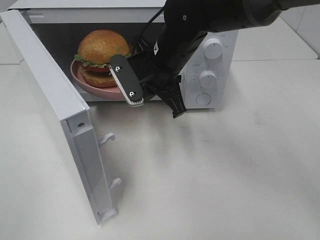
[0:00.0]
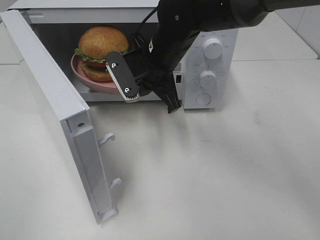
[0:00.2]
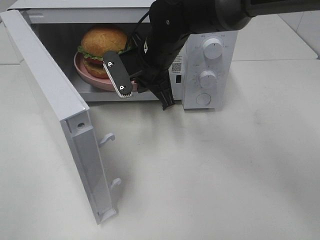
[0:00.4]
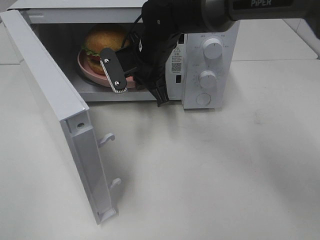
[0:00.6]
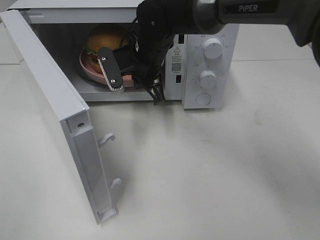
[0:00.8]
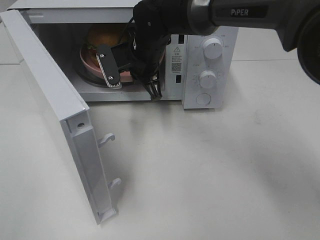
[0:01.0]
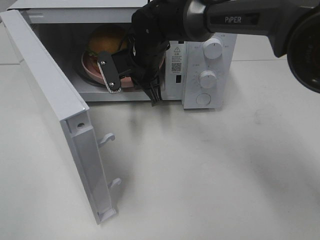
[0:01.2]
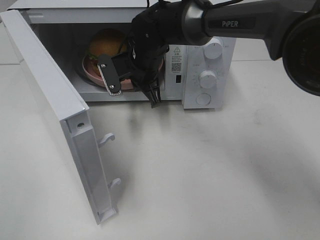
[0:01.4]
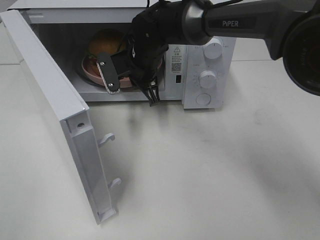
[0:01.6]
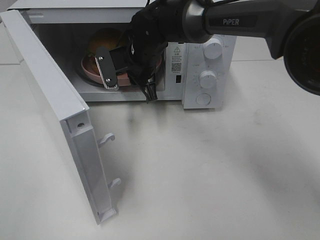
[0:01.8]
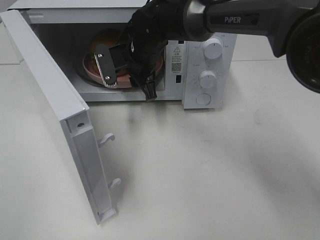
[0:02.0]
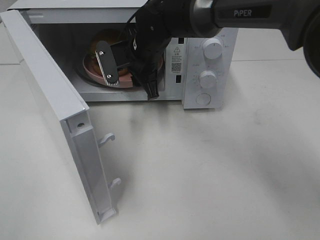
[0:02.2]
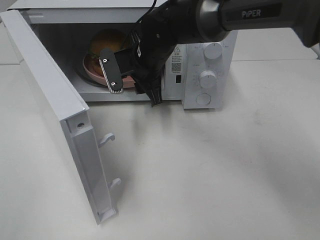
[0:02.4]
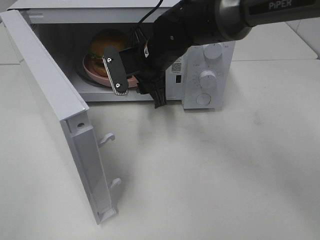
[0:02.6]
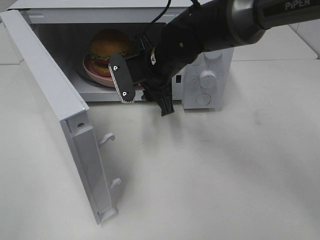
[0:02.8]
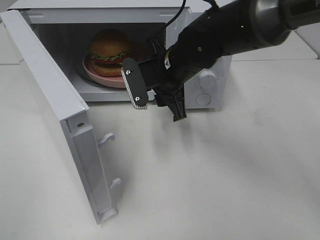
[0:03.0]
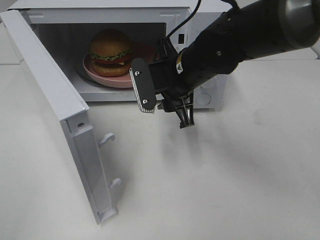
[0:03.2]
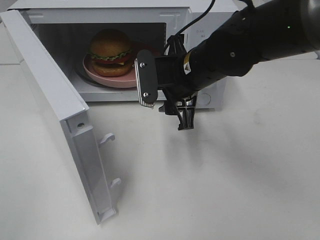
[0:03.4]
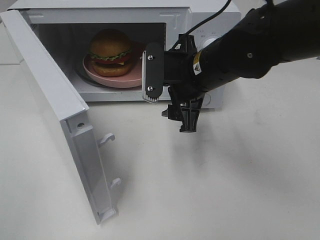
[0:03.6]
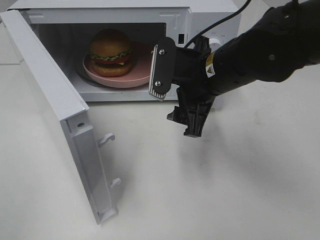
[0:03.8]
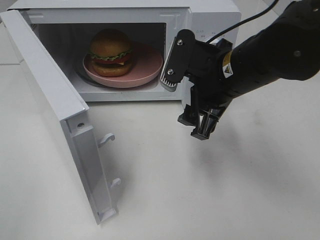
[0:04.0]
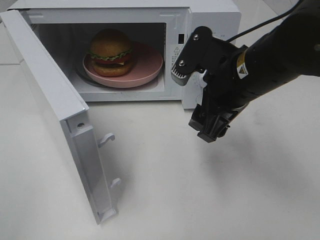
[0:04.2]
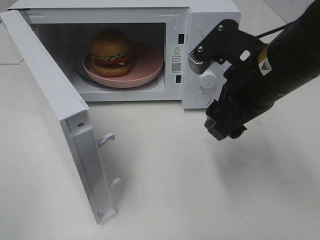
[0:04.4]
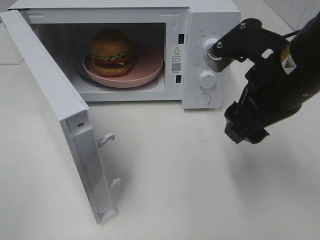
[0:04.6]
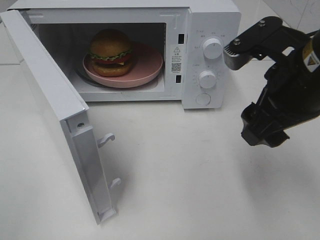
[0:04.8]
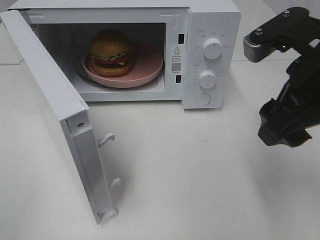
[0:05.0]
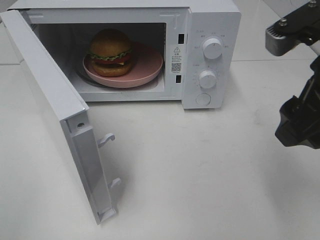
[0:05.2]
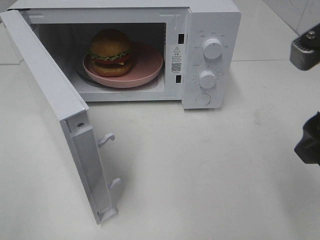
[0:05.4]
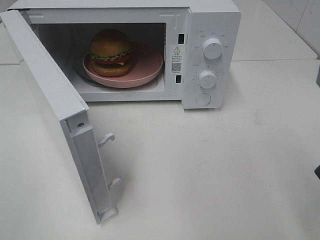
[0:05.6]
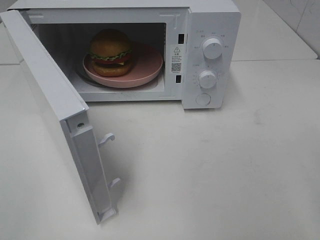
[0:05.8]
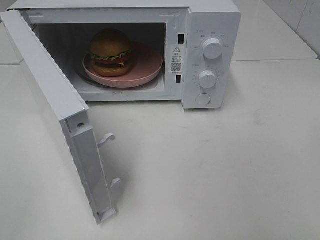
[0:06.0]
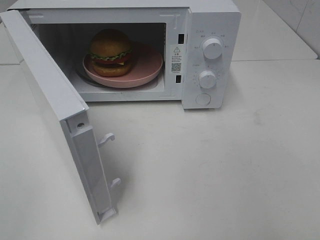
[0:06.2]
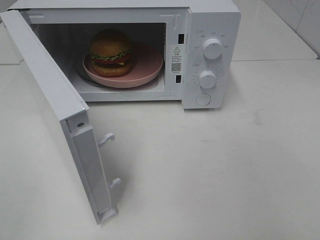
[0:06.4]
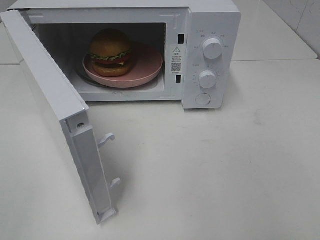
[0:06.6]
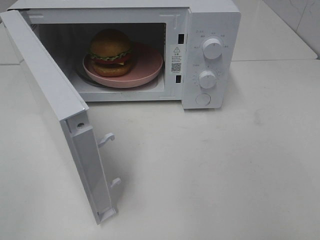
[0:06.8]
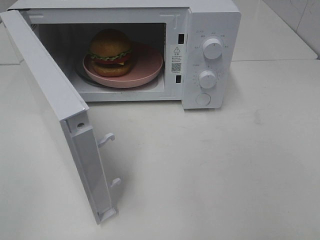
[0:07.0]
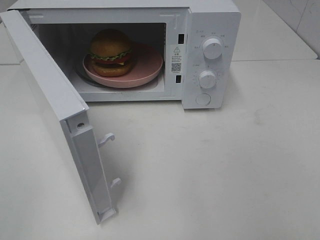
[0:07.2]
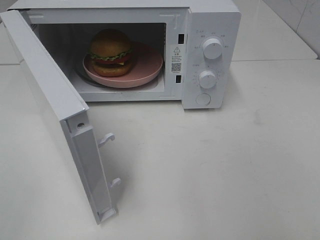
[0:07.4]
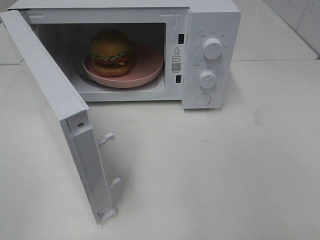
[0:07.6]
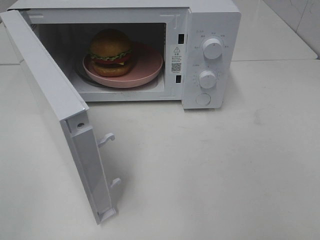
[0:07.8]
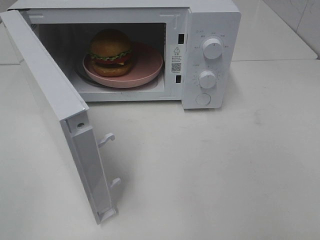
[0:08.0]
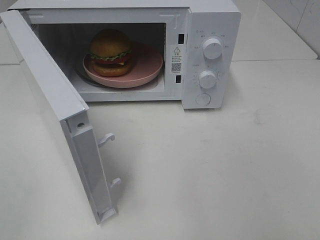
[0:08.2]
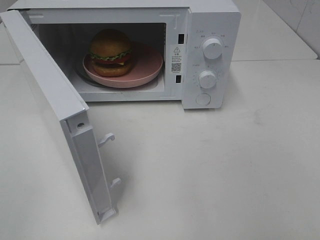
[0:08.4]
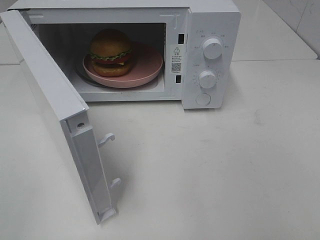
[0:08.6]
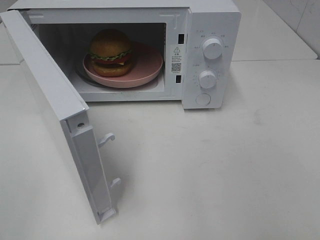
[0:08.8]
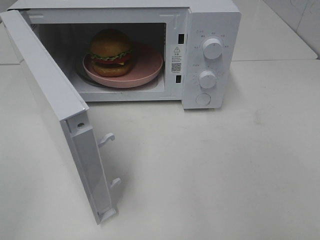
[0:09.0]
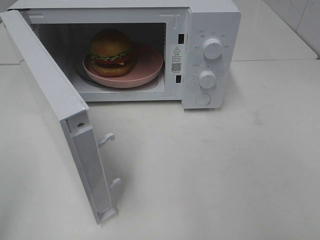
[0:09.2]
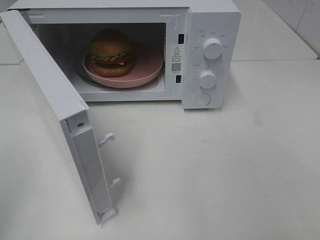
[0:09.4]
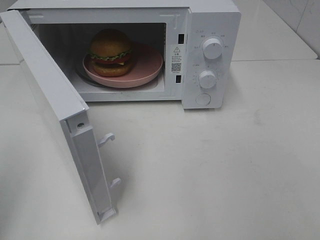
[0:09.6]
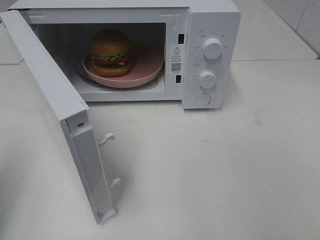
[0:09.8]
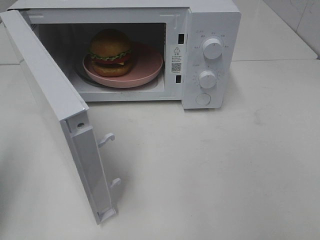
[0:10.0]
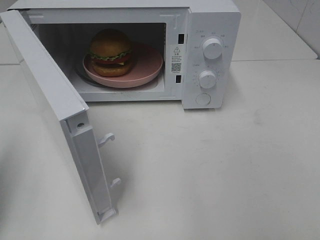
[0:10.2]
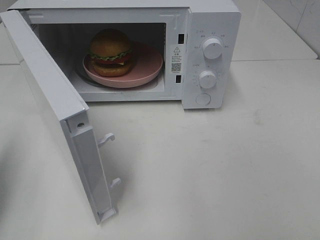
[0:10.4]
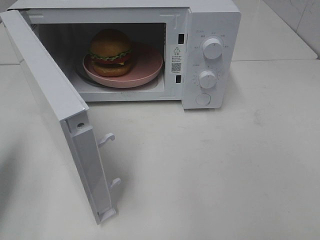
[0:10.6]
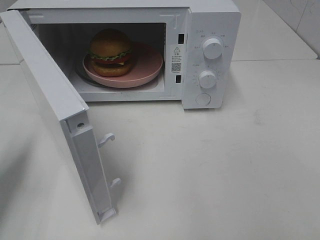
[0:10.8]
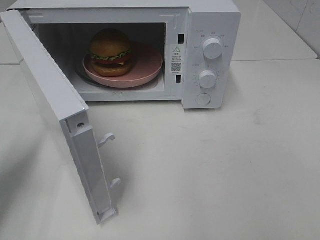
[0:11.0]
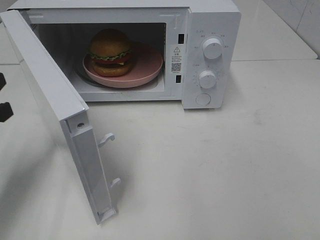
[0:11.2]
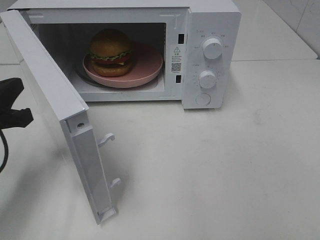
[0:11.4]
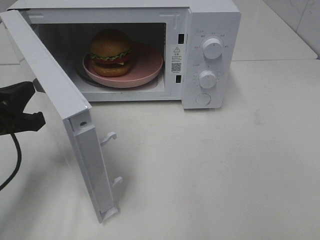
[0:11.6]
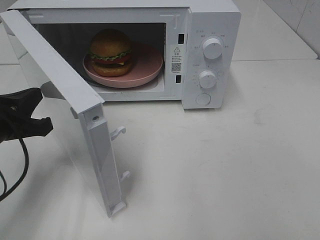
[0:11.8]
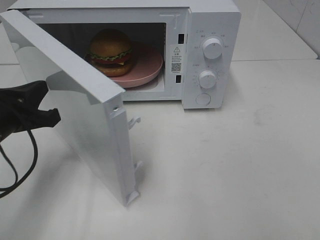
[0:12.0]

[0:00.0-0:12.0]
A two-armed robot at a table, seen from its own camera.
Task of the whole recording: Heat the burger.
Step, 0:00.0 to 0:02.8: Right hand: place the plate in the microwave.
0:00.0 to 0:01.6: The right gripper travels forward by roughly 5 cm.
0:01.6 to 0:03.0: The right gripper moves backward and to the right, roughly 10 cm, and opens.
0:03.0 to 0:04.4: The right gripper goes about 15 cm backward, to the right and upward.
0:04.4 to 0:06.0: The right gripper shifts about 20 cm to the right and backward.
0:09.0 to 0:10.4: The left gripper heads forward, covering approximately 15 cm, and closes.
0:10.4 to 0:12.0: The left gripper goes some 15 cm to the right, downward and forward.

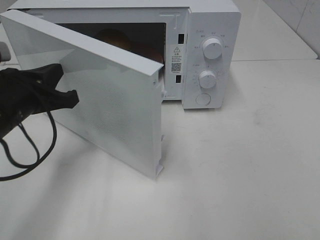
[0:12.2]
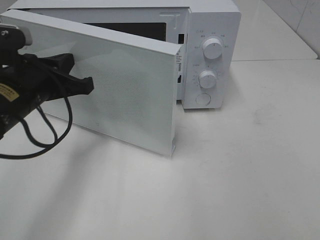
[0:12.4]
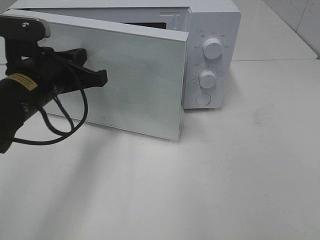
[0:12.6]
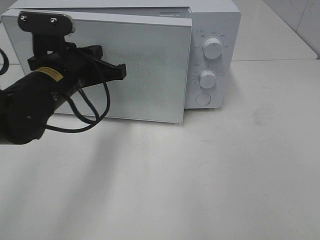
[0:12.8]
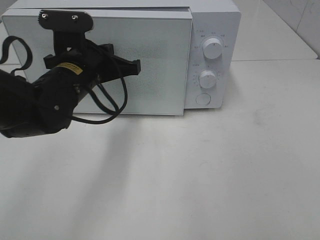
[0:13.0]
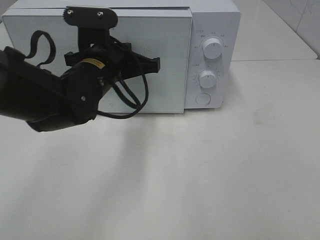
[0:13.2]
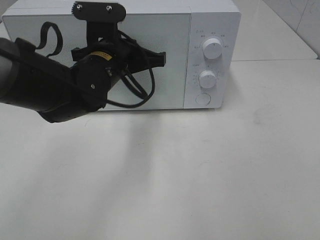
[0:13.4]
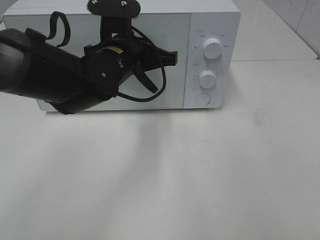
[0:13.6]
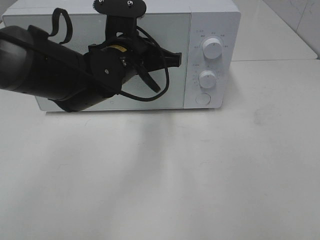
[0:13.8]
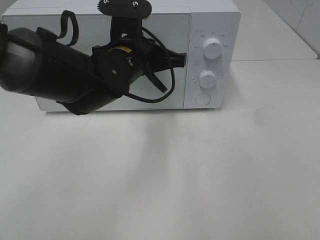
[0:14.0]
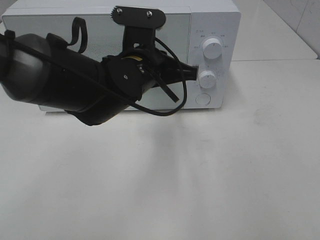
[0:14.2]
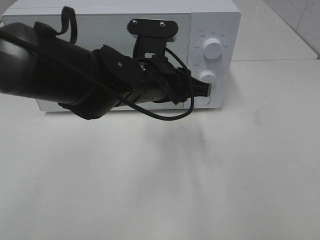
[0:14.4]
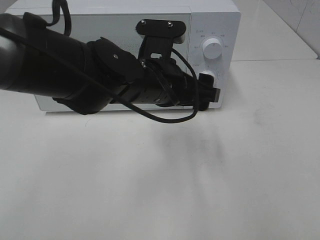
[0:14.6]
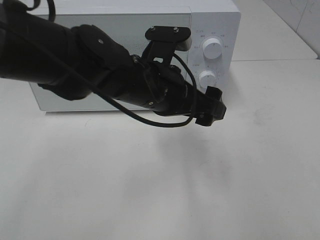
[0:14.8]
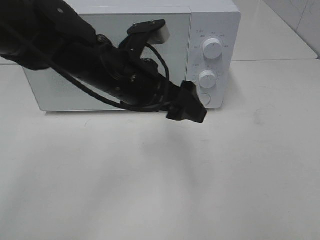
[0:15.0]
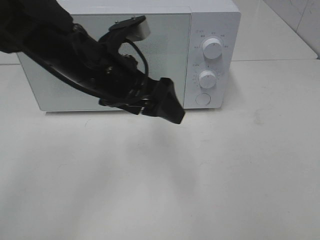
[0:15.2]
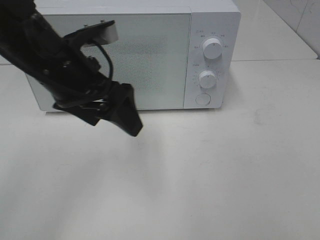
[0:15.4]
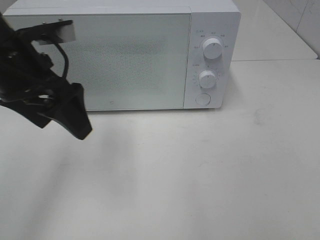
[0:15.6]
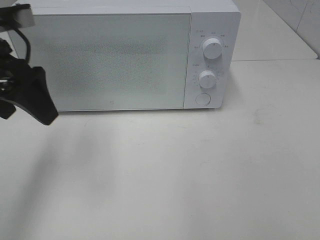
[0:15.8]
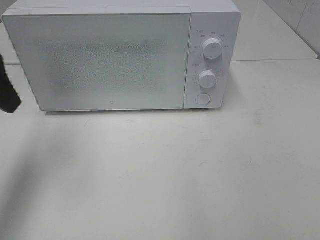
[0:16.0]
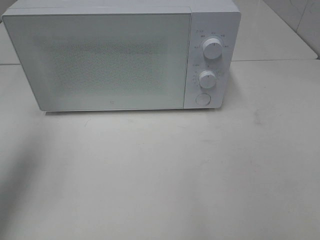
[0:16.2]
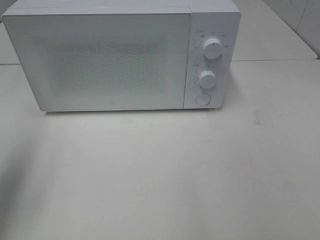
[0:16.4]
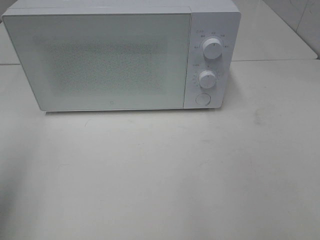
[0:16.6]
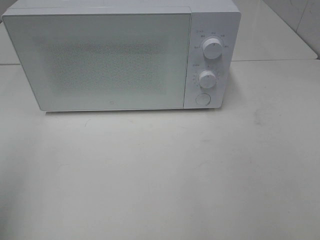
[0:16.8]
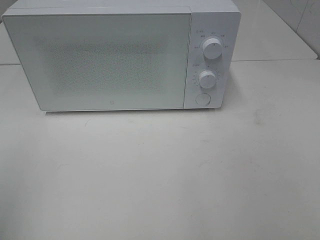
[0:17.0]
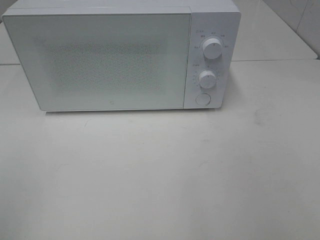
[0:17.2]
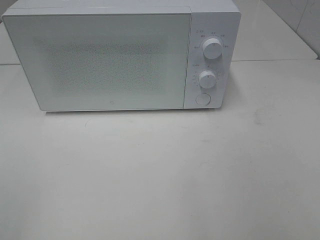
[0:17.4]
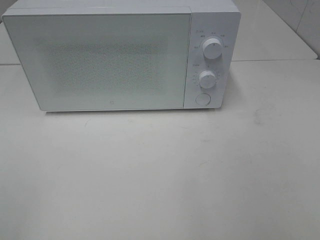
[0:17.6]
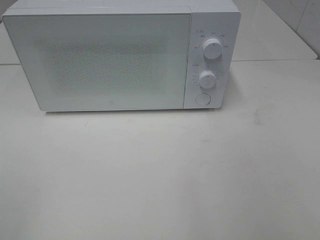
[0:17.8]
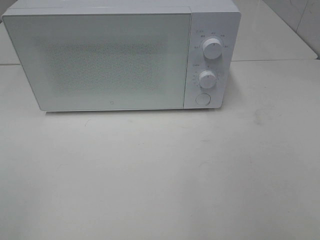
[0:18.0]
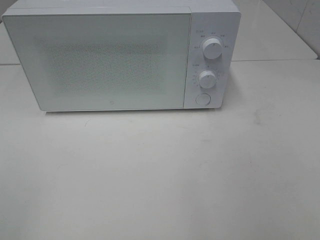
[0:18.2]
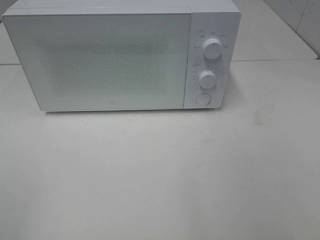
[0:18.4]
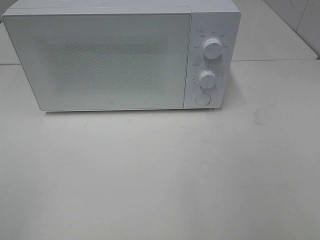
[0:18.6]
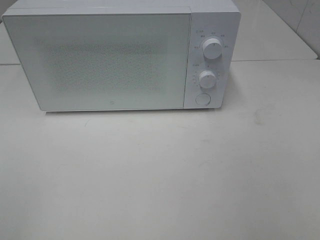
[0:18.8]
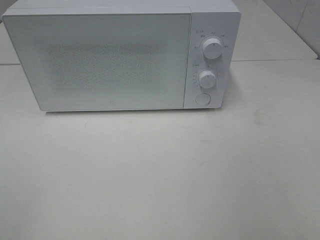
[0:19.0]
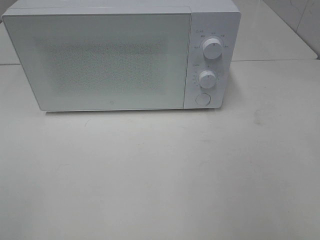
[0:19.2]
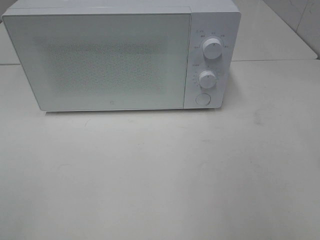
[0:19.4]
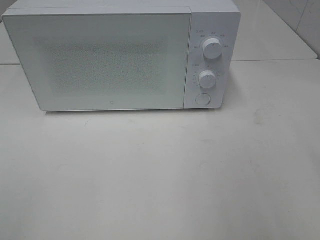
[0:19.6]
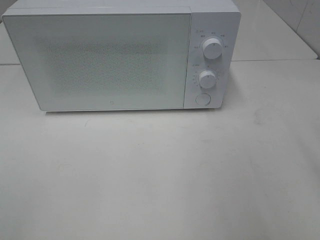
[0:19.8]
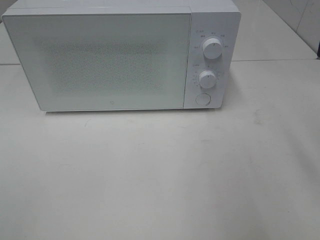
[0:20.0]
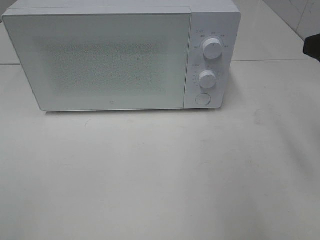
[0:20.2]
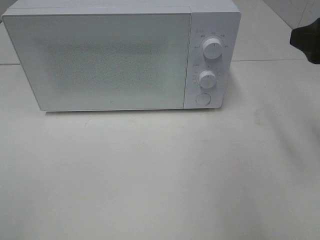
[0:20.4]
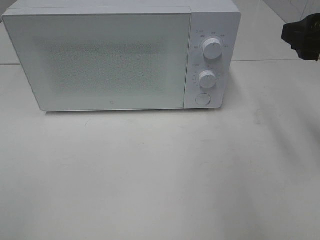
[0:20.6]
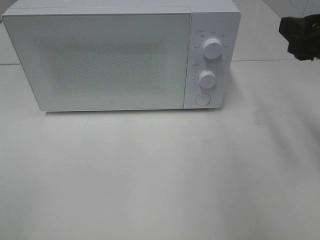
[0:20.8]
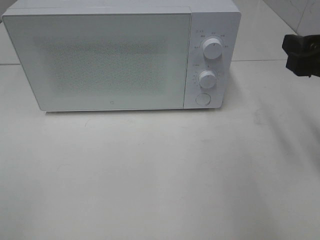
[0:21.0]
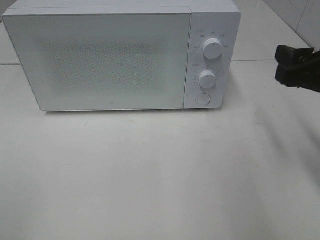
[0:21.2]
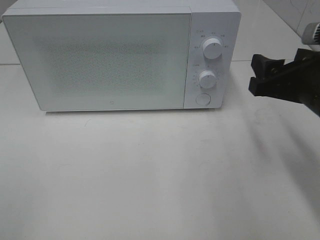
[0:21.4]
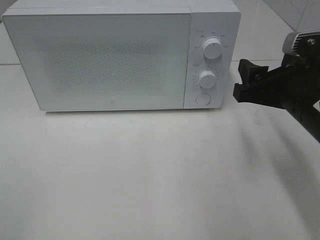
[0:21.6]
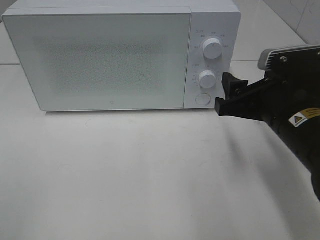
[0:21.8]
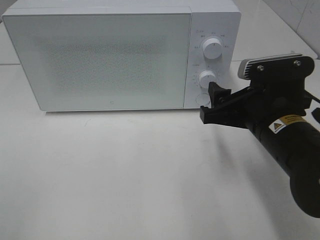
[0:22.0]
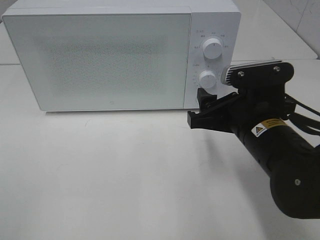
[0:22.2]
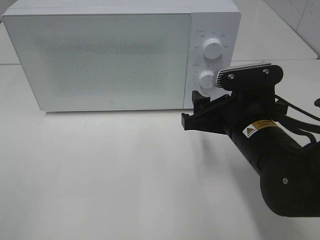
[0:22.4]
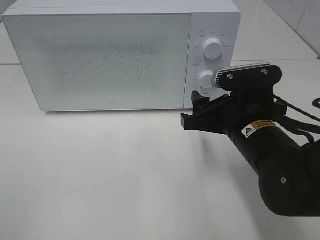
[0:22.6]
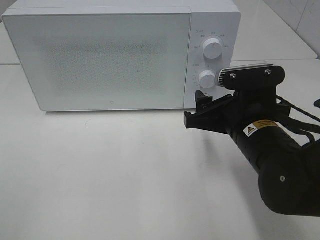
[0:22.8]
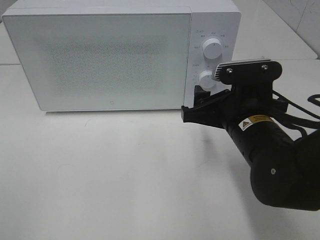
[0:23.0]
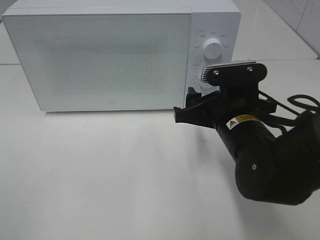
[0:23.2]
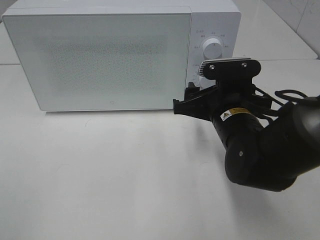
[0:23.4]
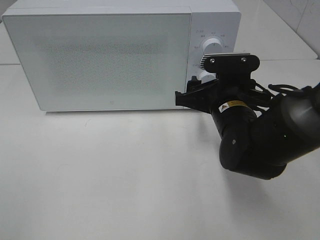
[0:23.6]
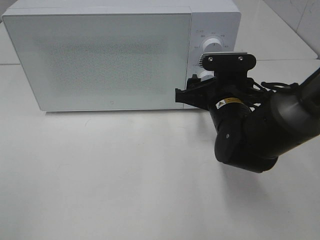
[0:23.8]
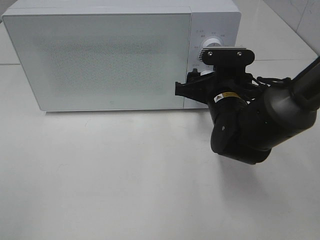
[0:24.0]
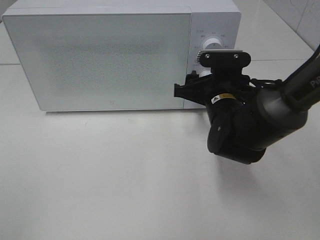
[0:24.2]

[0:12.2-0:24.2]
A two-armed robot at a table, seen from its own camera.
Task of the whole recording: Heat the burger.
Step, 0:12.2 to 0:14.6: Left hand: close the microwave door.
0:12.2 to 0:13.8: The left gripper is displaced to the right and forward by approximately 20 cm.
0:13.8 to 0:15.2: The left gripper moves backward, about 5 cm, and opens.
0:15.2 to 0:16.6: The left gripper travels to the left and backward by some 30 cm.
0:16.6 to 0:18.2: The left gripper heads backward, covering some 15 cm.
0:19.8 to 0:21.2: The right gripper shifts some 10 cm downward and forward.
0:21.2 to 0:22.6: The right gripper heads to the left and downward, covering approximately 15 cm.
0:22.6 to 0:24.2: The right gripper travels forward by approximately 10 cm.
